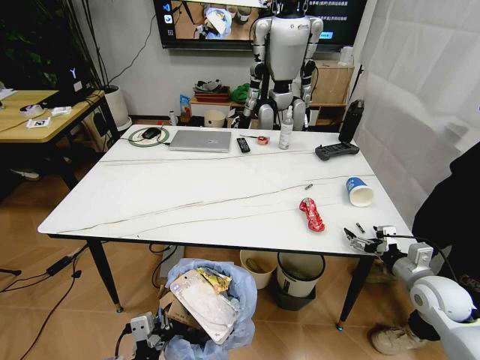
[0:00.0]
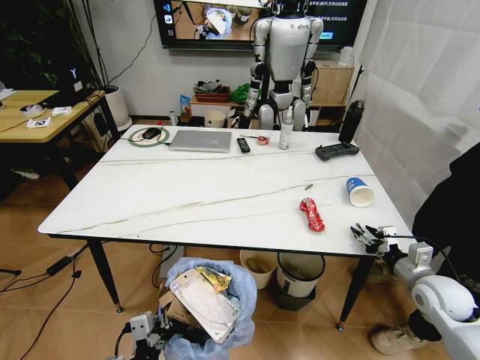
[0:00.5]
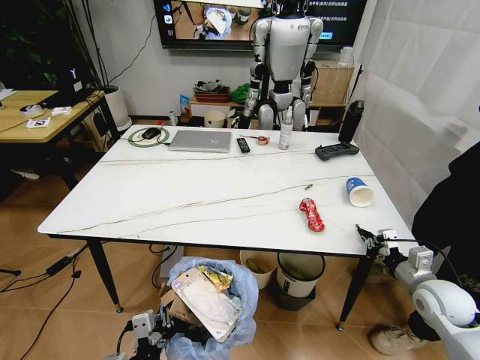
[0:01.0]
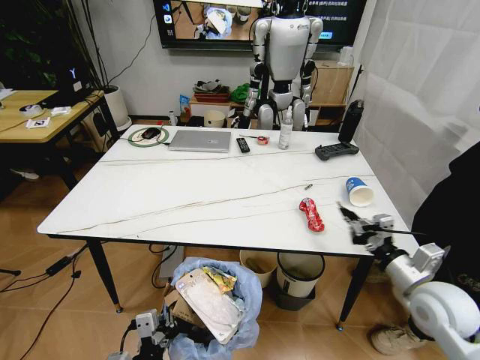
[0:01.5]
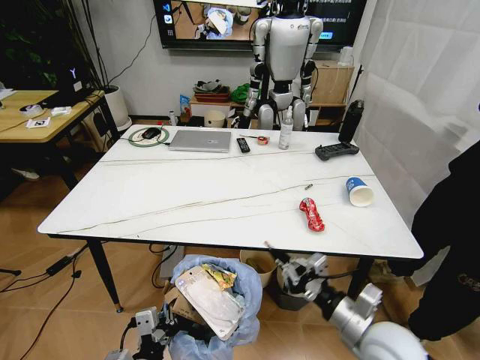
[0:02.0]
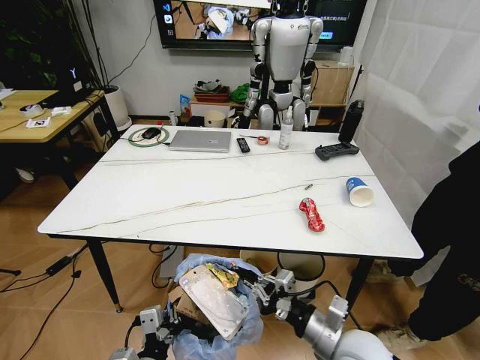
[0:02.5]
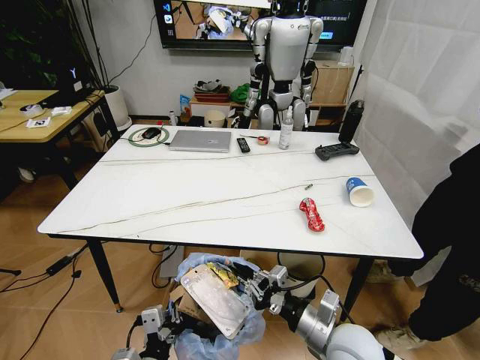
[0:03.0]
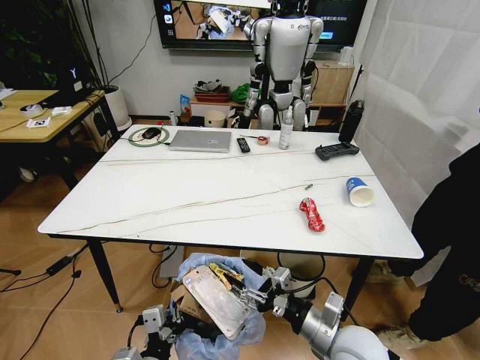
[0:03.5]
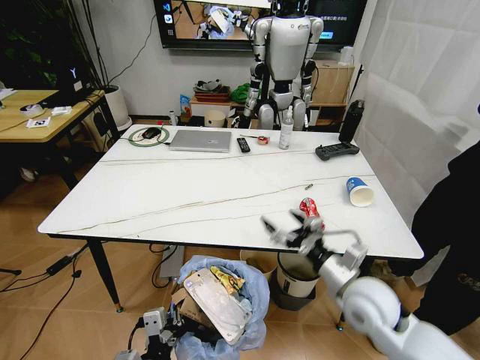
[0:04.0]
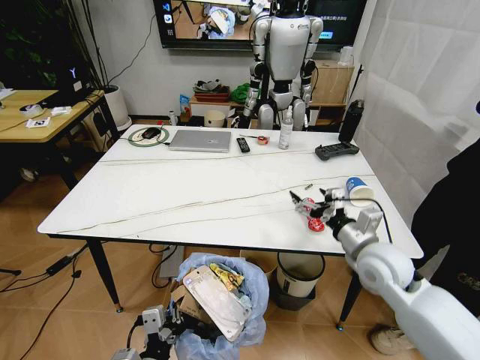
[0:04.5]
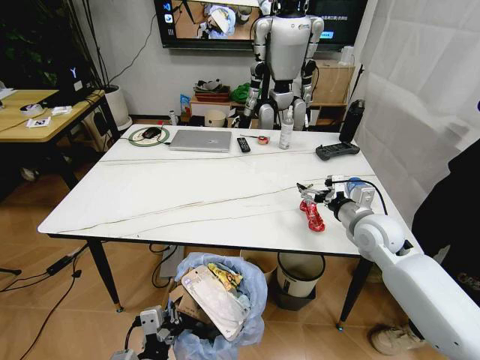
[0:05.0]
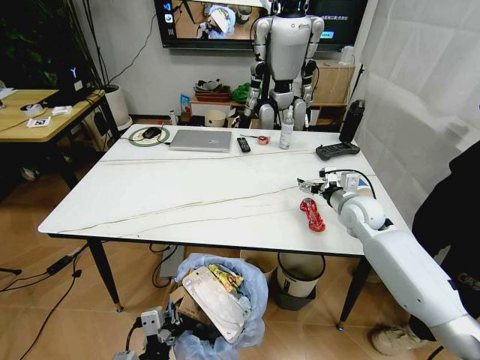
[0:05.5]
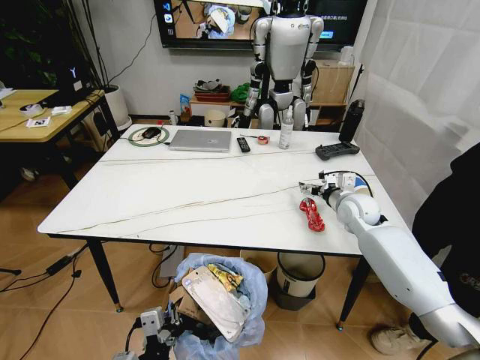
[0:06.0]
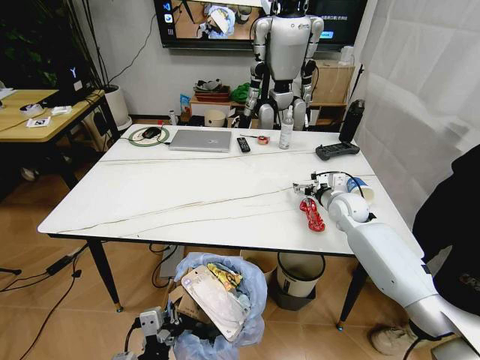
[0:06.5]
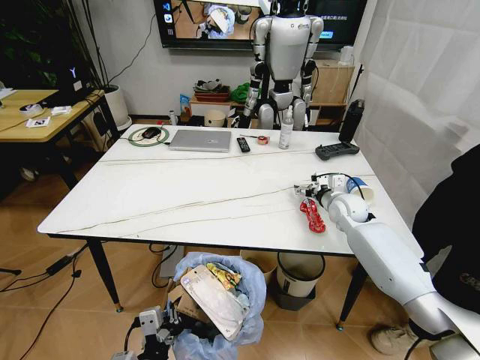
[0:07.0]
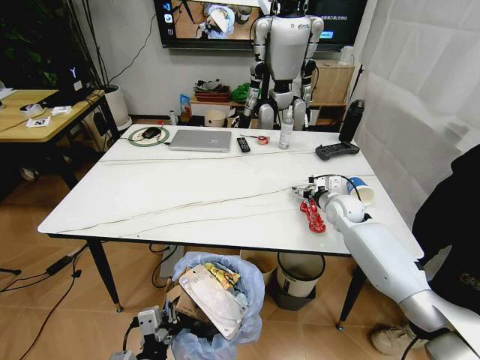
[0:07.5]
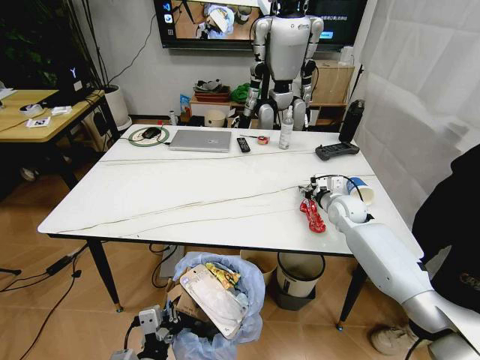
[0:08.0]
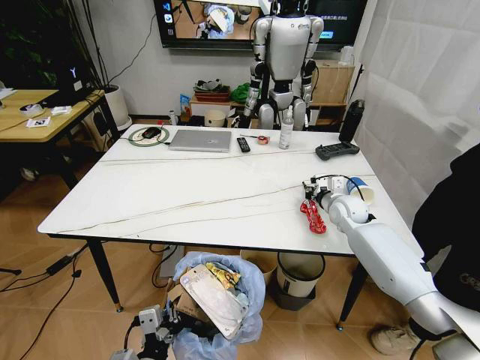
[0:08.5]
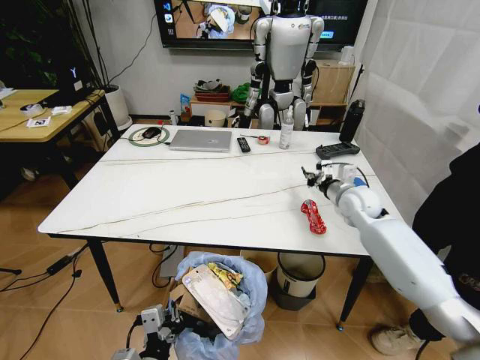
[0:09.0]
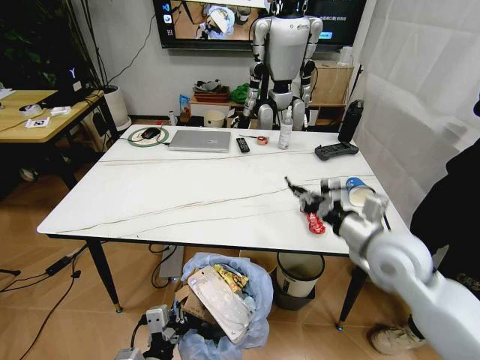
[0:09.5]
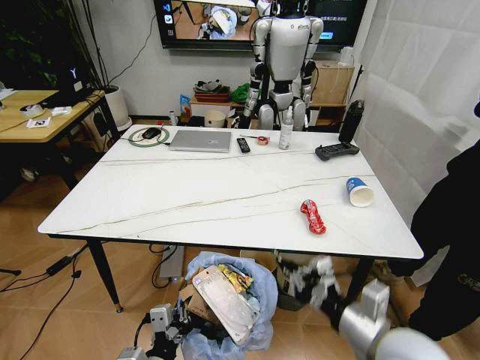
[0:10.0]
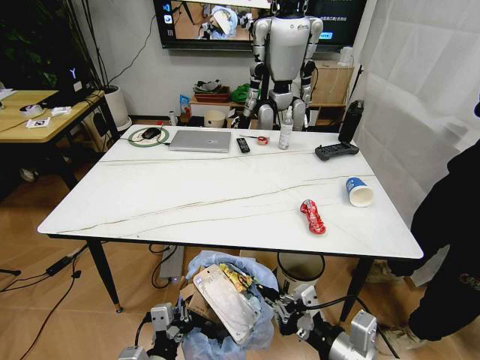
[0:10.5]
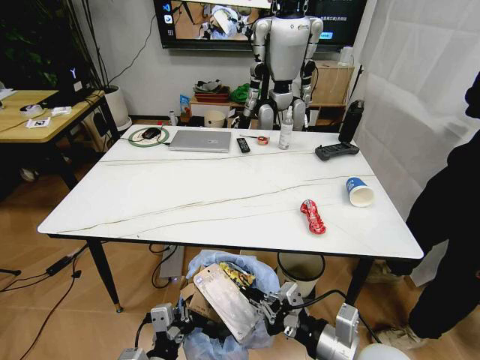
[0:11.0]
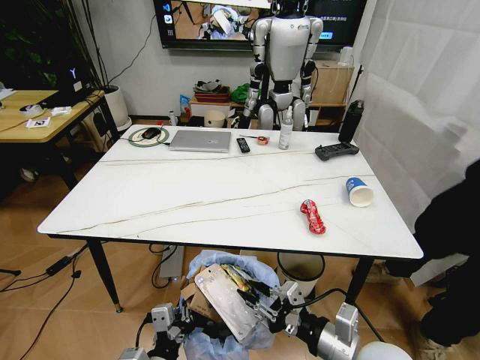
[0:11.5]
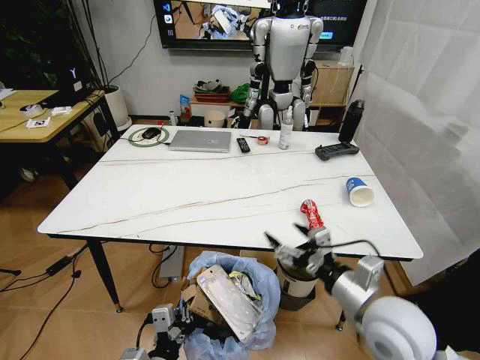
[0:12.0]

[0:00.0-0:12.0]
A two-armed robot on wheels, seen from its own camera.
Task of the whole recording: Pick up the trash bin and place the trash from the table into it.
0:00.0 to 0:02.0: The right gripper heads to the left and backward, covering roughly 20 cm, and closes up.
0:02.0 to 0:04.0: The right gripper travels forward by some 10 cm, and opens its fingers.
0:04.0 to 0:06.0: The right gripper travels forward by approximately 20 cm.
0:06.0 to 0:08.0: The right gripper closes.
0:08.0 to 0:10.0: The right gripper is displaced backward by roughly 35 cm, and closes up.
0:10.0 to 0:12.0: The right gripper opens.

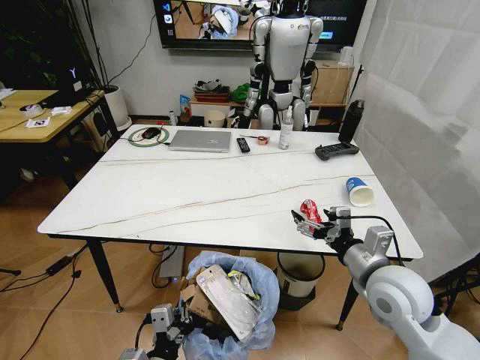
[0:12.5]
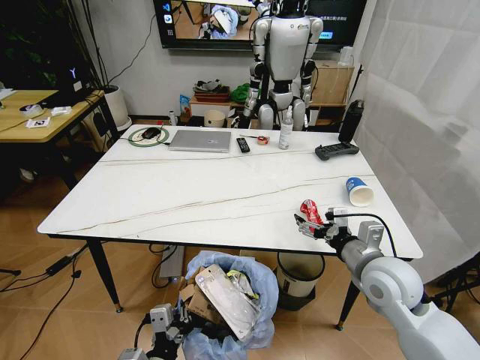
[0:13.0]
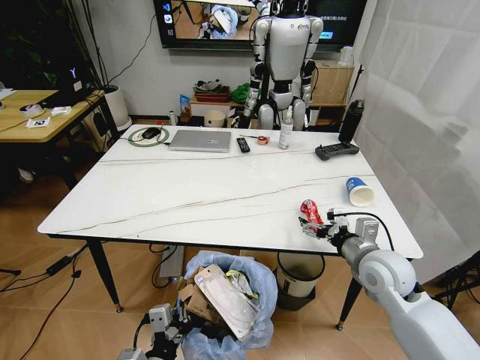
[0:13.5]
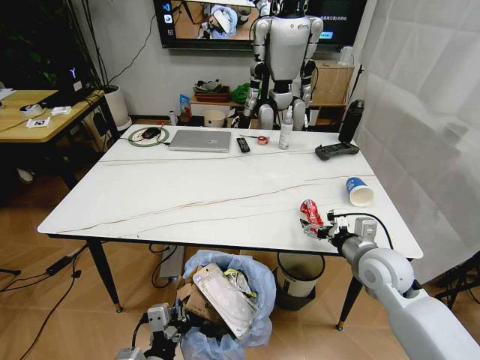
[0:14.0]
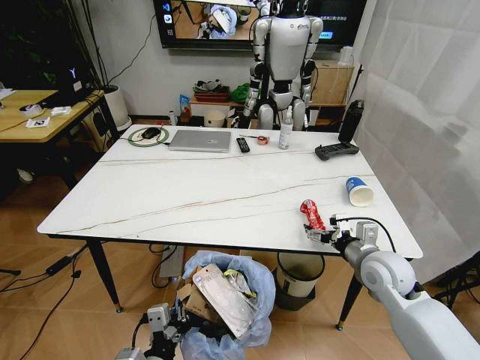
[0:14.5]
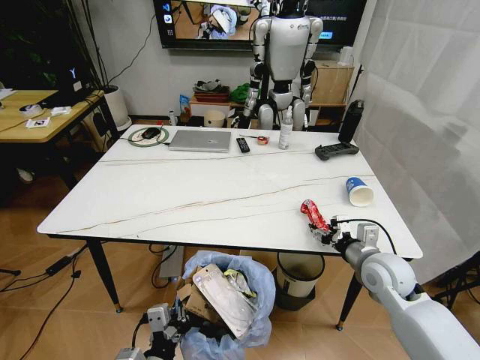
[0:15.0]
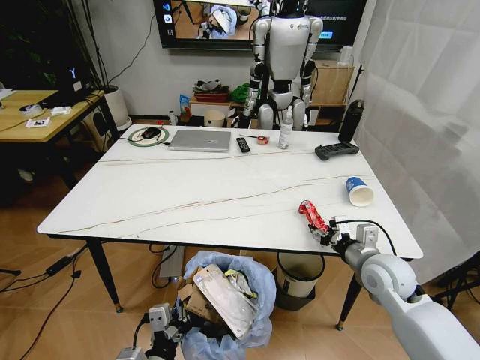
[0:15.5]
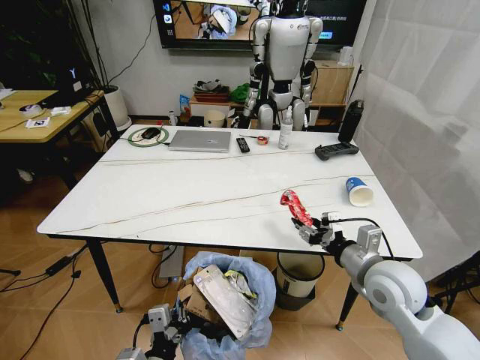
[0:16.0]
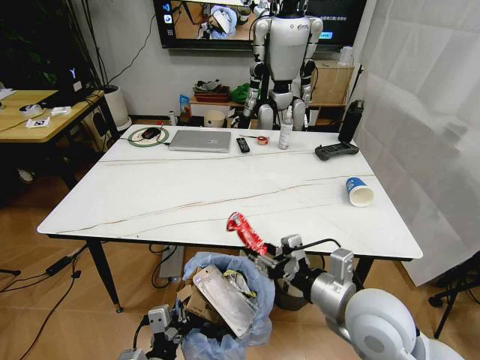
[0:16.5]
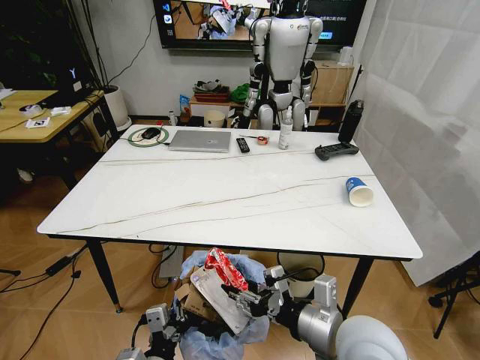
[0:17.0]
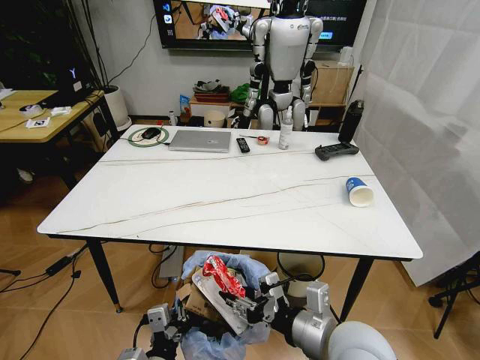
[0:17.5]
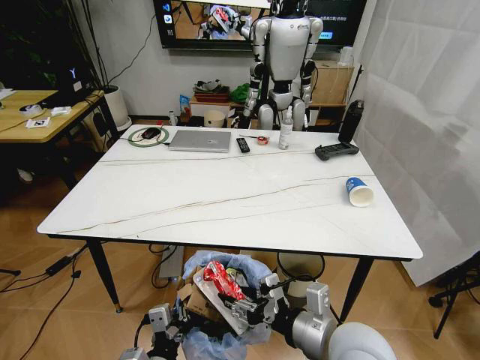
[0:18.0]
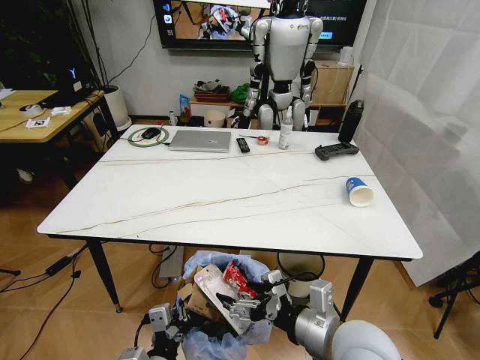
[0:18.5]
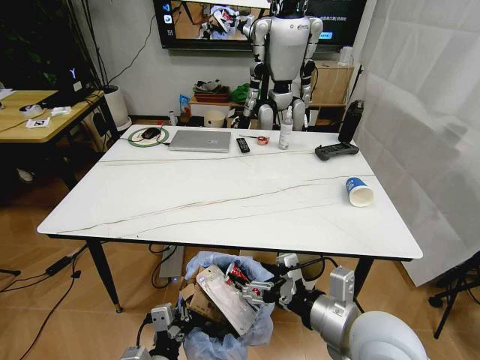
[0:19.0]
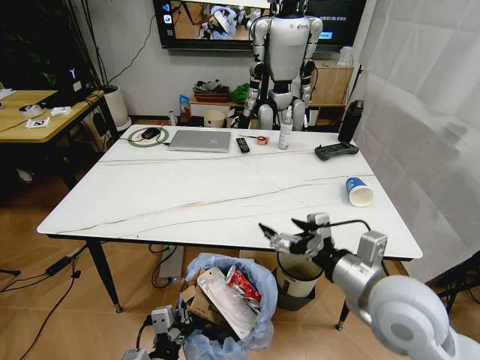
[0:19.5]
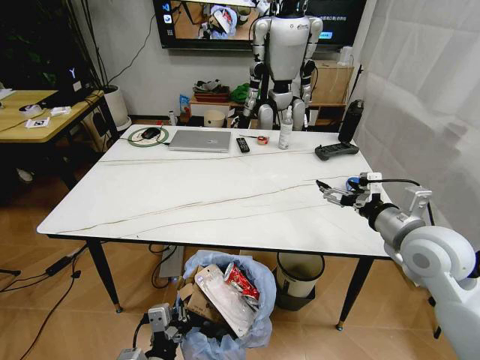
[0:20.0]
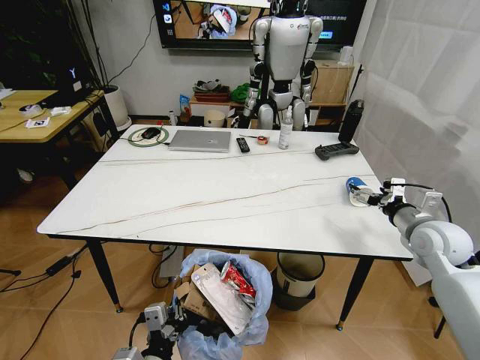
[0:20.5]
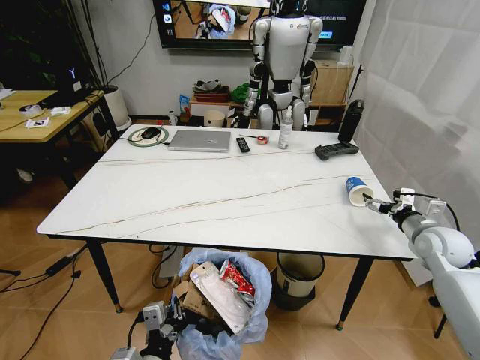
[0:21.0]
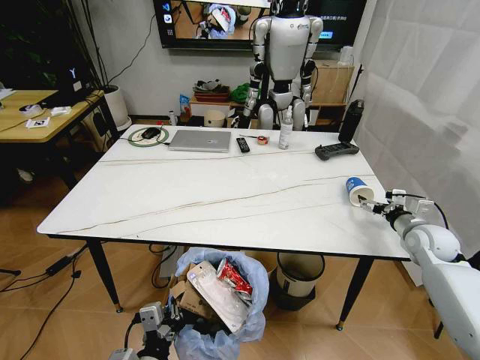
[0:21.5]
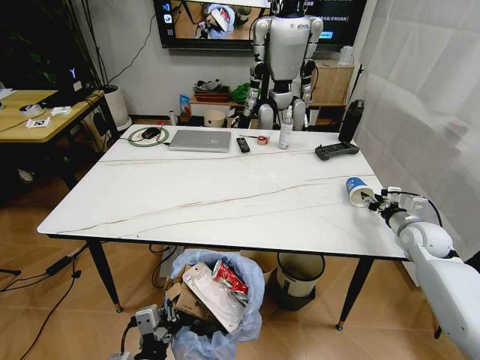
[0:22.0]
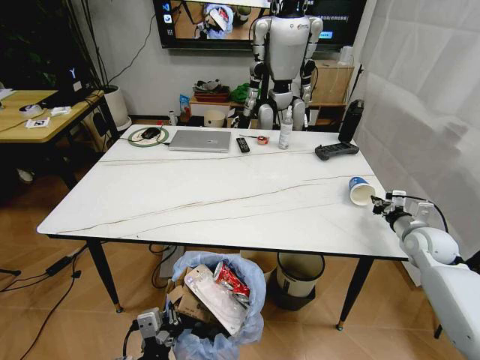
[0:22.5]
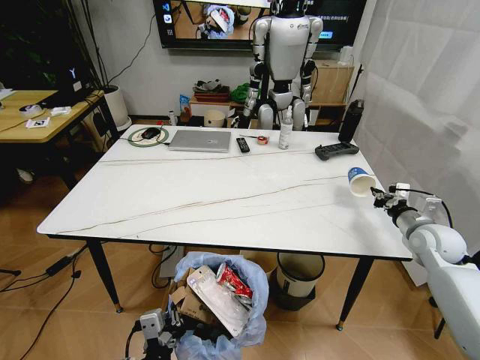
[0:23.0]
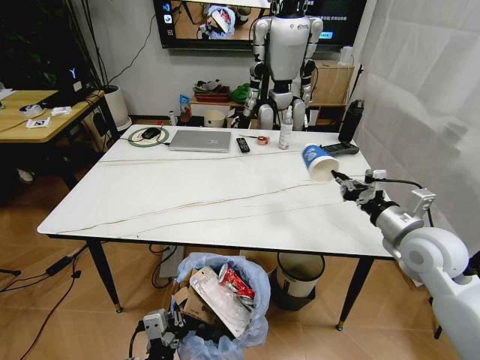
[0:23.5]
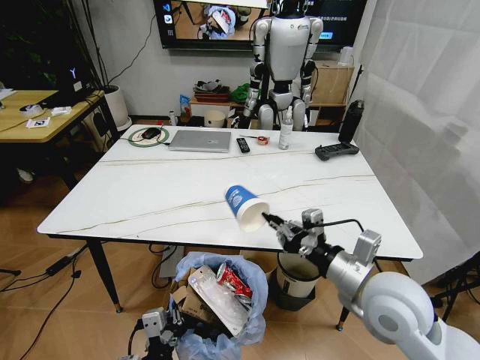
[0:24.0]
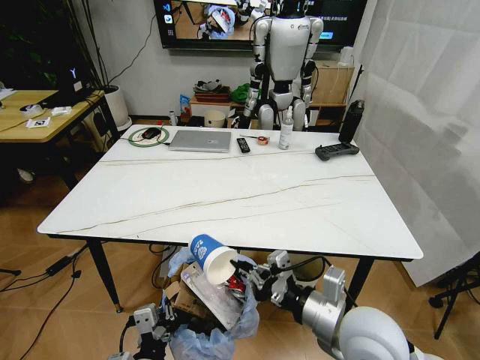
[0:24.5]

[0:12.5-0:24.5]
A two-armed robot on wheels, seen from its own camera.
Task of the whole recording: Pick up the trash bin and place the trash from the table into it.
0:12.5 to 0:14.5: The right gripper shifts approximately 10 cm forward and downward.
0:14.5 to 0:16.5: The right gripper heads backward, to the left and upward, covering about 15 cm, and closes its fingers.
0:16.5 to 0:18.5: The right gripper shifts roughly 5 cm backward, and opens its fingers.
0:18.5 to 0:20.5: The right gripper moves to the right and forward, approximately 30 cm.
0:20.5 to 0:22.5: The right gripper goes some 10 cm downward, and closes up.
0:22.5 to 0:24.5: The right gripper moves to the left and backward, approximately 35 cm.

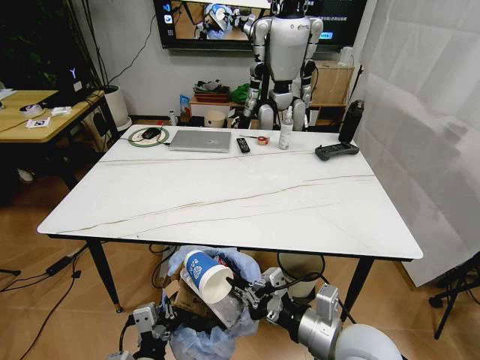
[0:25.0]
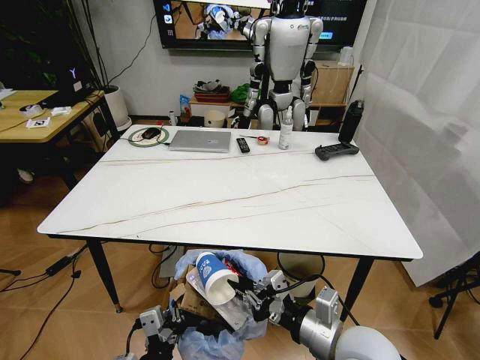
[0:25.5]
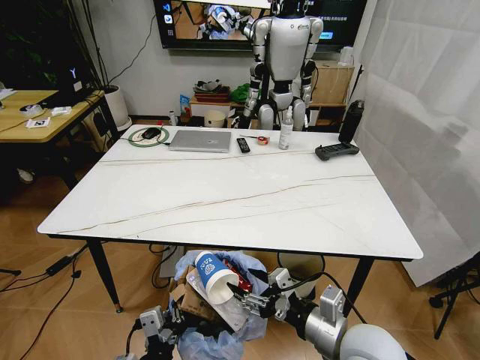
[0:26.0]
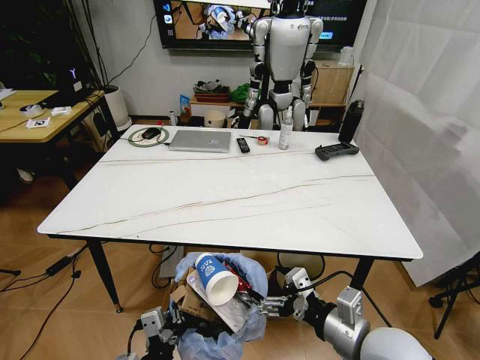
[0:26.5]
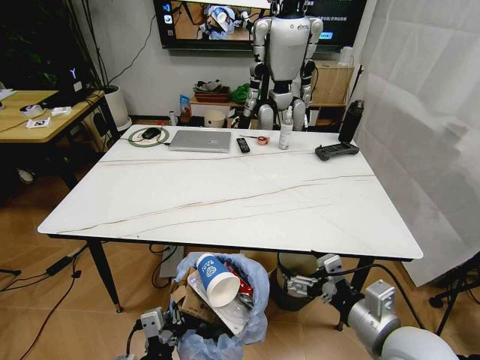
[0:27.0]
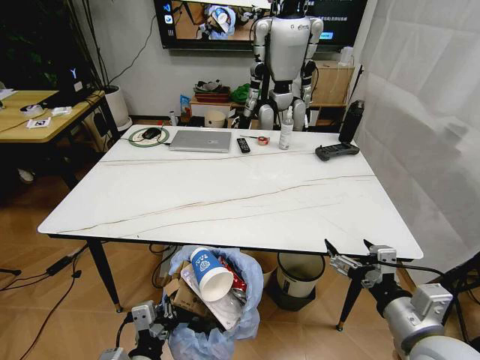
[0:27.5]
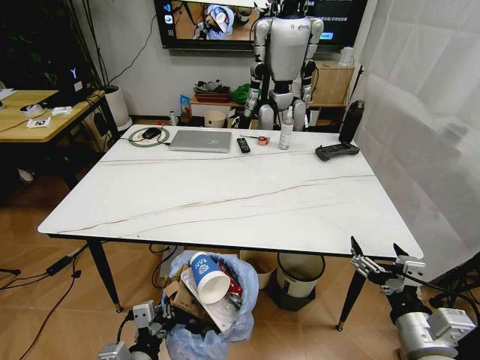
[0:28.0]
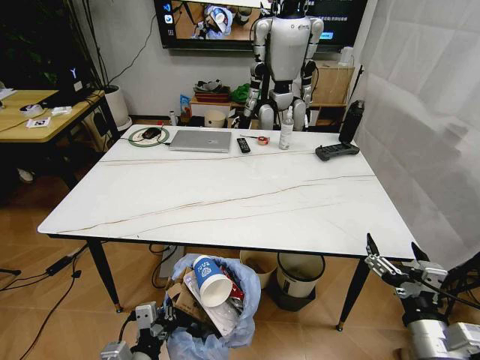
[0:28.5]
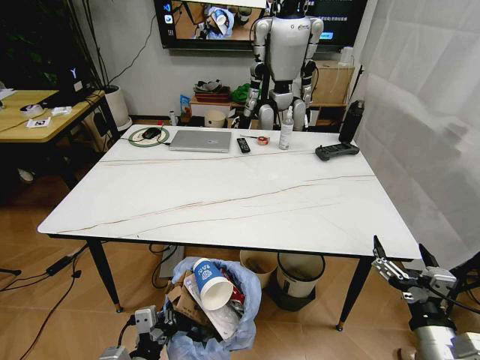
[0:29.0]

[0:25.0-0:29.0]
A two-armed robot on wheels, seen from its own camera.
Task of the whole recording: Pick up the trash bin and place the trash from the table into it.
0:25.0 to 0:27.0: The right gripper shifts about 5 cm to the right, and opens up.
0:27.0 to 0:29.0: The right gripper goes some 10 cm to the right and downward.
